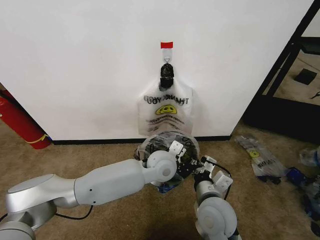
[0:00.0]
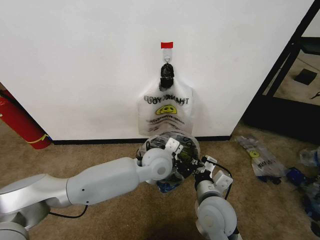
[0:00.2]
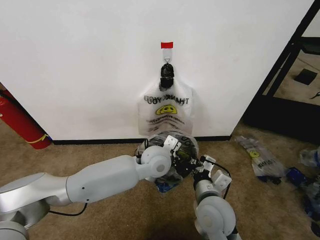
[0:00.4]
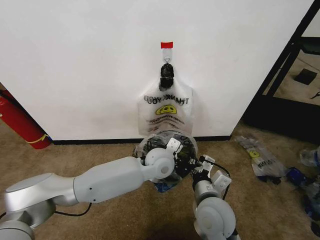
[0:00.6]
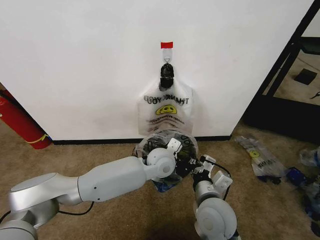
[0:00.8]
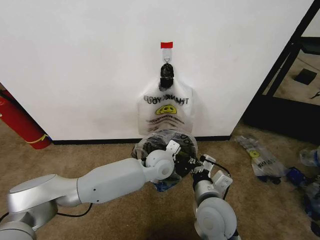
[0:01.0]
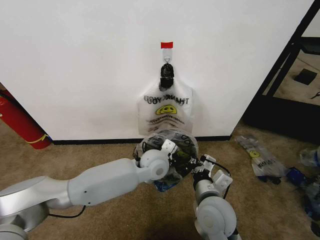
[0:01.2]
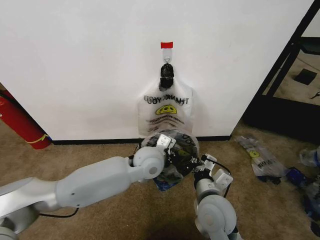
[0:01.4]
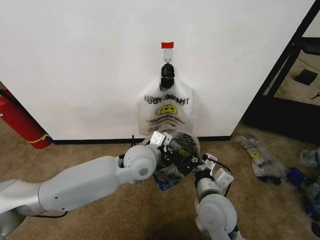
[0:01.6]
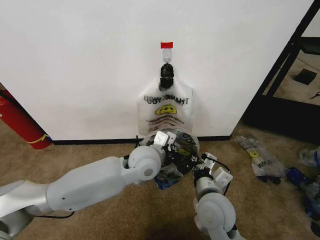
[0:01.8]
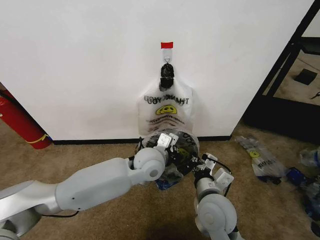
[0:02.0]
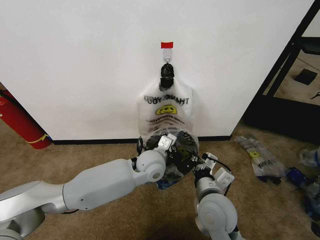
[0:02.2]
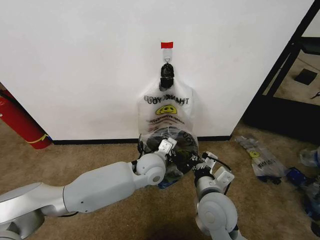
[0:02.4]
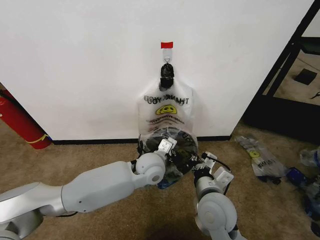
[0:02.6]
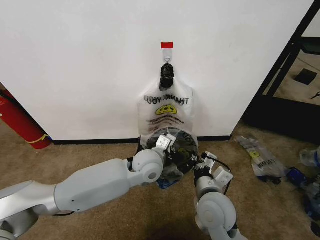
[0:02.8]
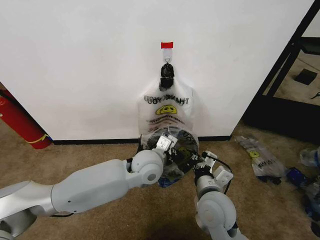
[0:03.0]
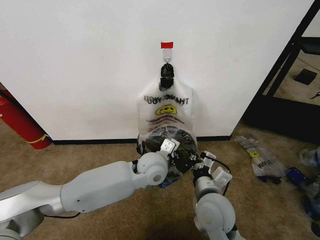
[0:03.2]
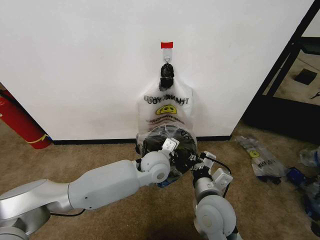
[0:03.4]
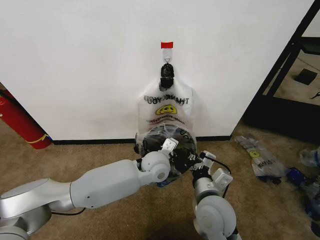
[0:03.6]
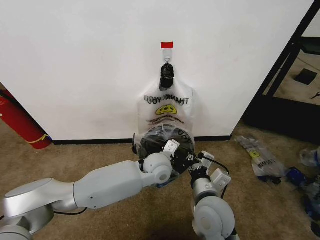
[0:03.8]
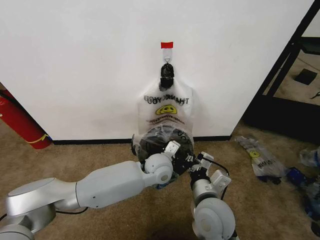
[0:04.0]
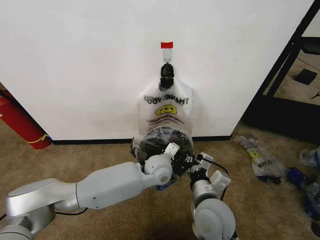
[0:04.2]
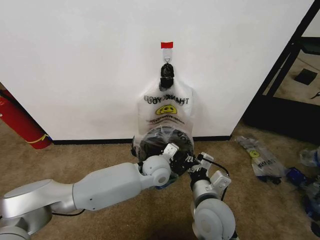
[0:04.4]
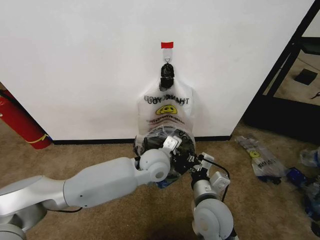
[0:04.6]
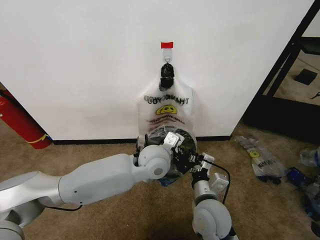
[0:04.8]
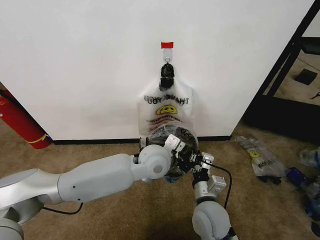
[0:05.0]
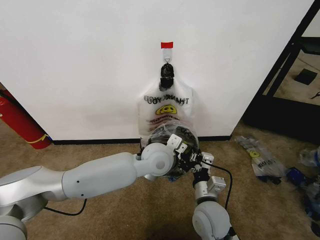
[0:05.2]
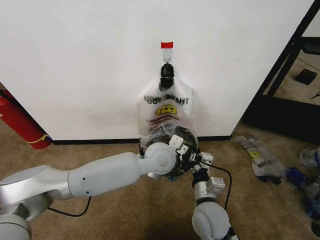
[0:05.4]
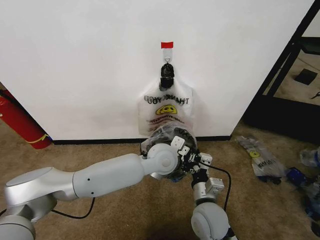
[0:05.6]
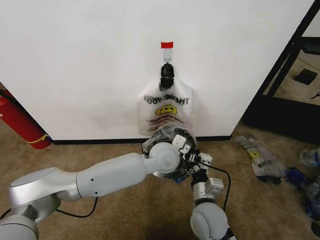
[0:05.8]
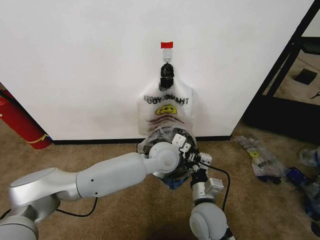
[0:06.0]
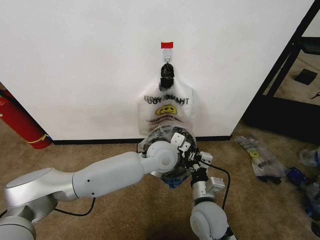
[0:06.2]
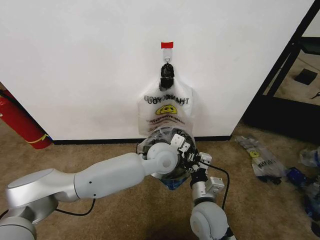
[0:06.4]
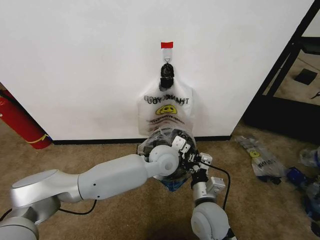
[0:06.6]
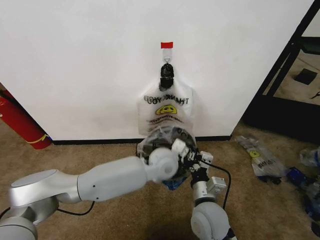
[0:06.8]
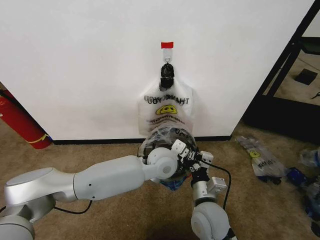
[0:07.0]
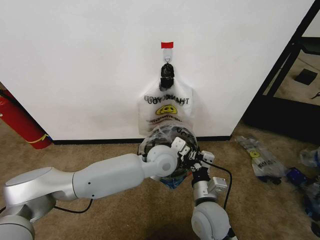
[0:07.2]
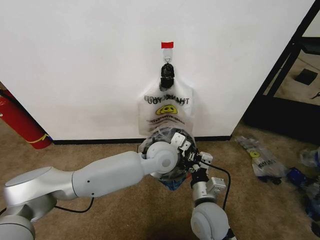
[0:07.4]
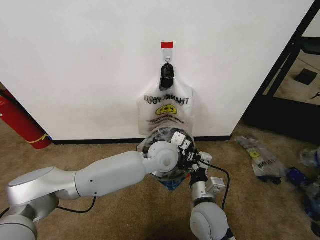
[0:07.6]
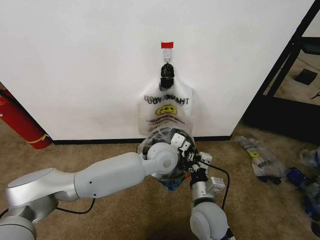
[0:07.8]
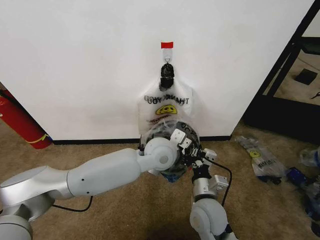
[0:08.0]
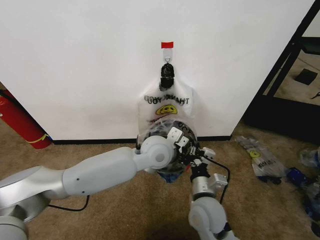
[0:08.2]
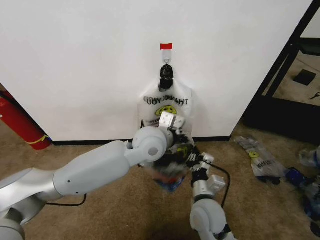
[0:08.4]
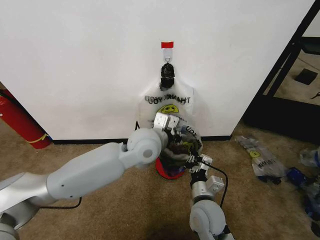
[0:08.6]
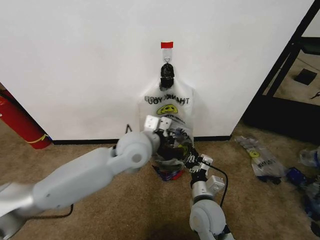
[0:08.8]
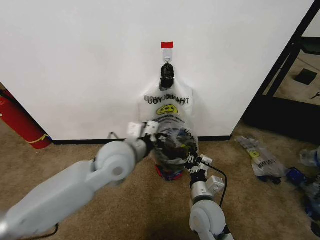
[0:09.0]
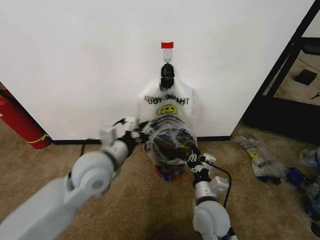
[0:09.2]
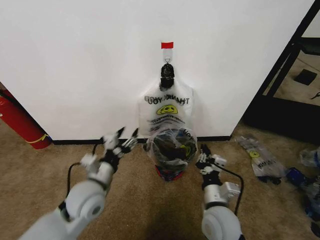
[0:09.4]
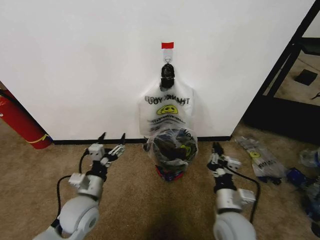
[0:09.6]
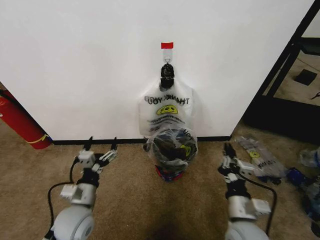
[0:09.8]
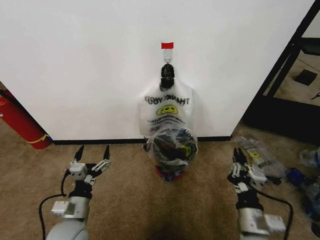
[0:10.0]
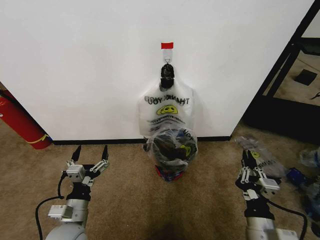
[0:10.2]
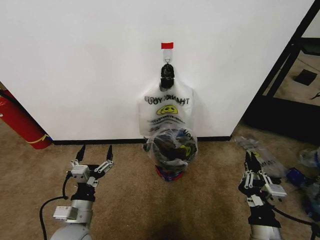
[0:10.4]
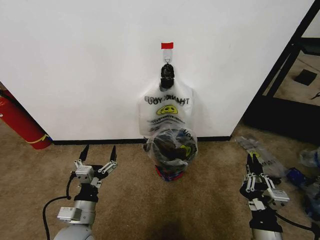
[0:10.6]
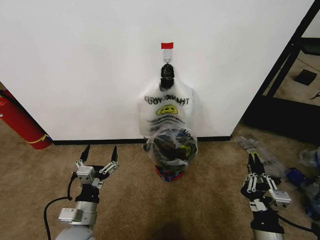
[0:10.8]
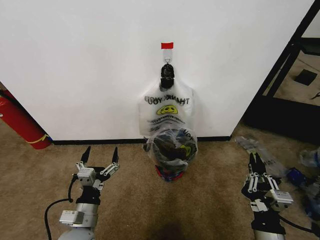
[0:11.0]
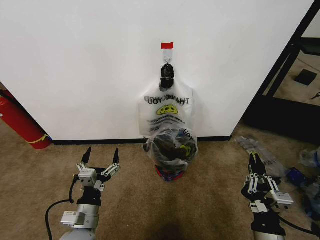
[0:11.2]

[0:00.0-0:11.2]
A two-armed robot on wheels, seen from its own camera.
Task of the whole recording: Pick up the garbage bag from the wall and place it over the trash bin.
0:00.0 to 0:01.6: The left gripper moves to the left, some 5 cm.
0:01.6 to 0:03.2: The left gripper moves approximately 5 cm.
0:03.2 to 0:04.8: The grippers move only a little.
0:04.8 to 0:08.0: The grippers stay close to where they were, moving slightly.
0:08.0 to 0:09.6: The left gripper travels to the left, backward and downward by about 30 cm, and opens up; the right gripper goes some 5 cm to the right.
0:09.6 to 0:11.2: The left gripper moves backward, approximately 10 cm. Meanwhile the right gripper moves backward and to the right, approximately 15 cm.

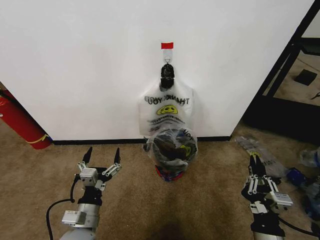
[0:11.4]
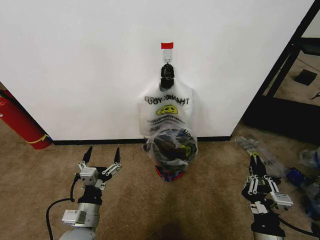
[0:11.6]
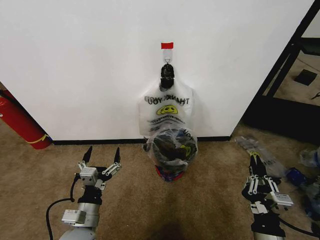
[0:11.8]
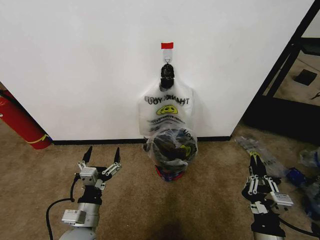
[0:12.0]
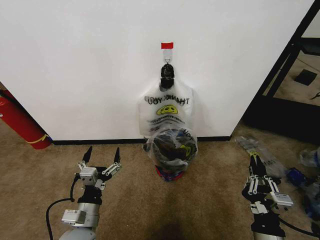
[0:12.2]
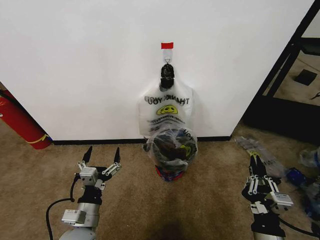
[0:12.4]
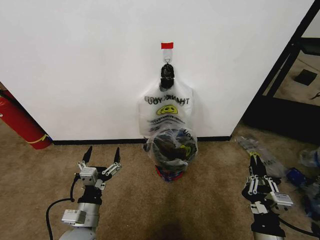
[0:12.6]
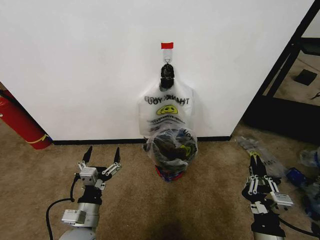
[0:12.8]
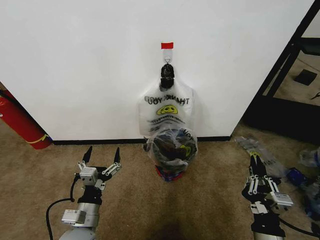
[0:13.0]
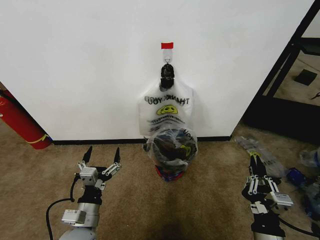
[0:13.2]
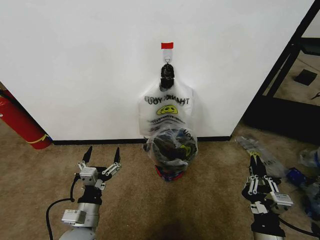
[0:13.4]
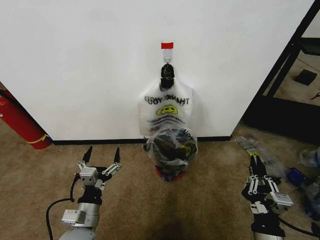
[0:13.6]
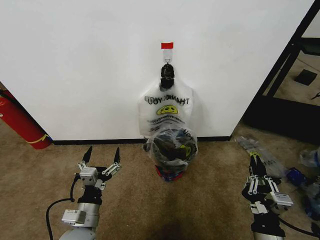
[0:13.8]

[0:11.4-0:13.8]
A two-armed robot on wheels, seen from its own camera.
Task of the whole recording: Pick up the garbage bag from the wall and place it over the trash bin.
0:11.4 to 0:13.8: Both grippers stay about where they are.

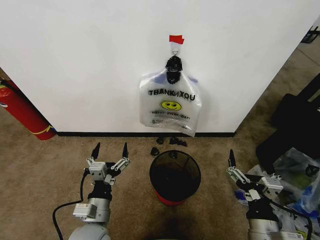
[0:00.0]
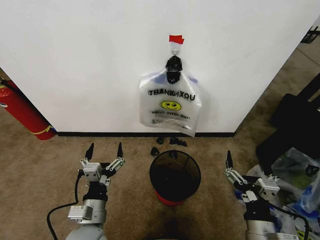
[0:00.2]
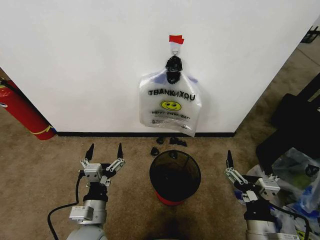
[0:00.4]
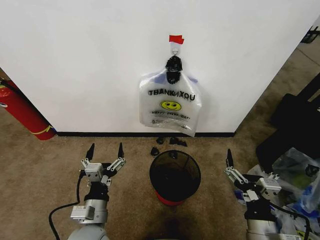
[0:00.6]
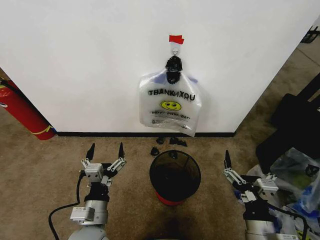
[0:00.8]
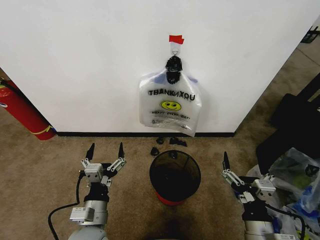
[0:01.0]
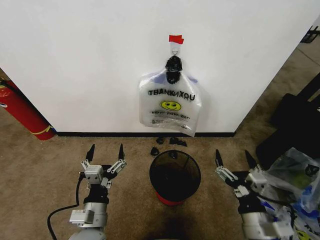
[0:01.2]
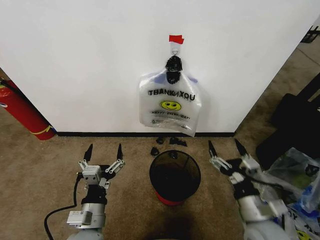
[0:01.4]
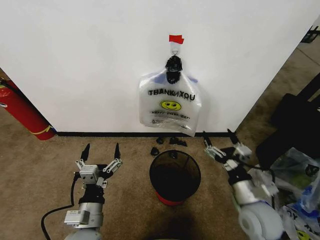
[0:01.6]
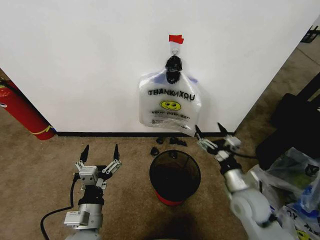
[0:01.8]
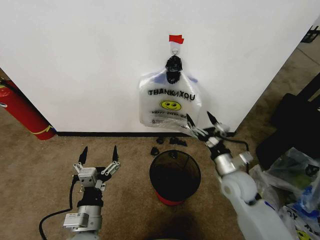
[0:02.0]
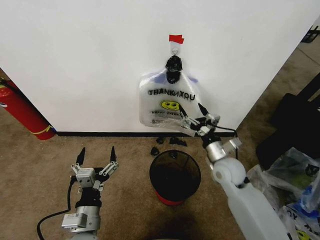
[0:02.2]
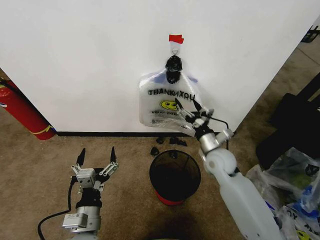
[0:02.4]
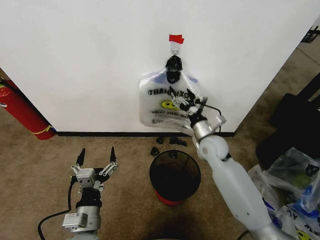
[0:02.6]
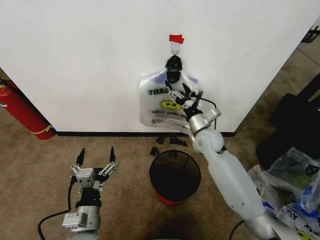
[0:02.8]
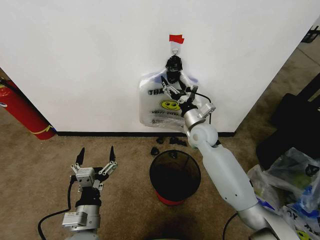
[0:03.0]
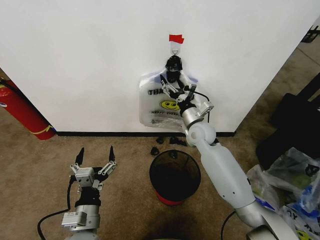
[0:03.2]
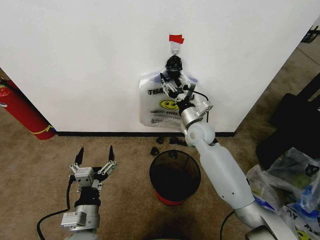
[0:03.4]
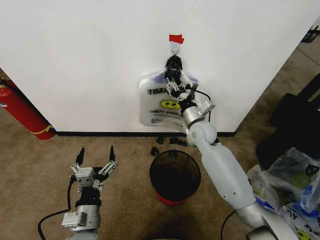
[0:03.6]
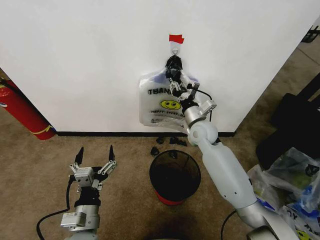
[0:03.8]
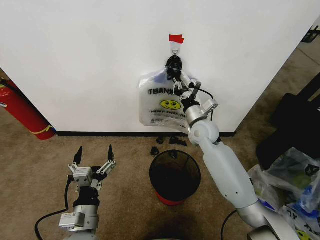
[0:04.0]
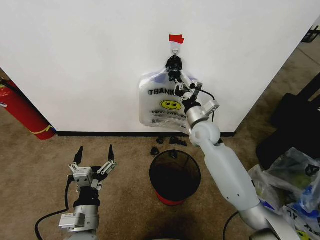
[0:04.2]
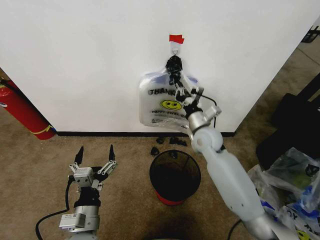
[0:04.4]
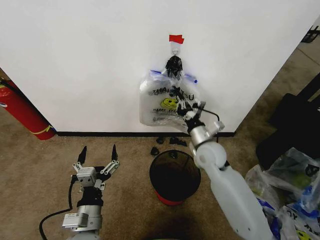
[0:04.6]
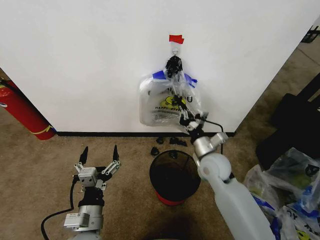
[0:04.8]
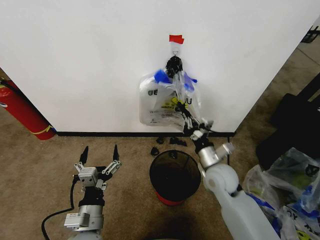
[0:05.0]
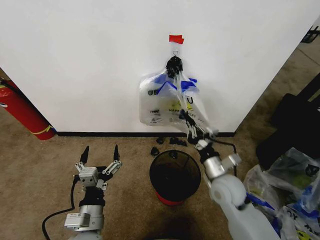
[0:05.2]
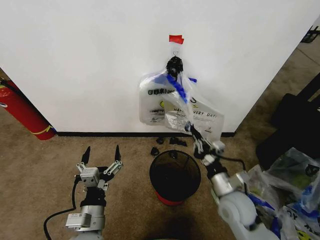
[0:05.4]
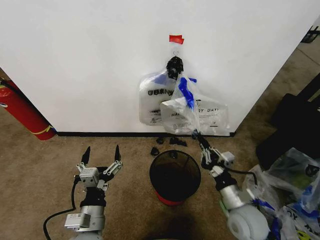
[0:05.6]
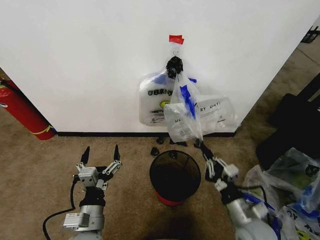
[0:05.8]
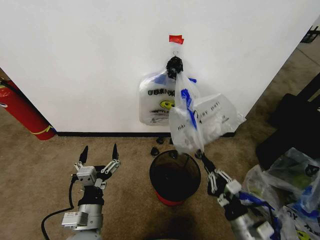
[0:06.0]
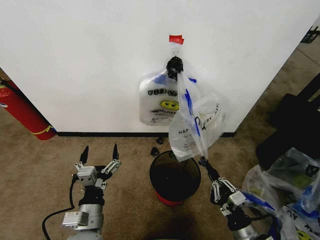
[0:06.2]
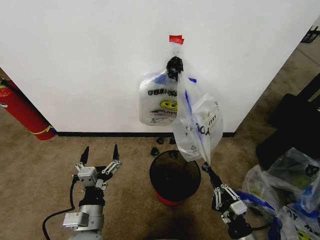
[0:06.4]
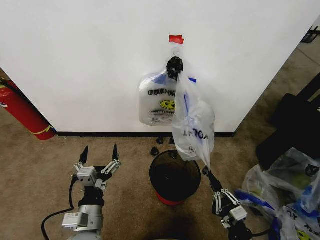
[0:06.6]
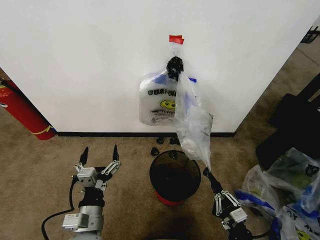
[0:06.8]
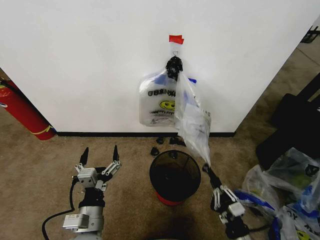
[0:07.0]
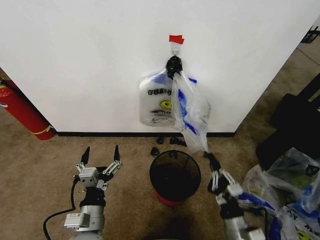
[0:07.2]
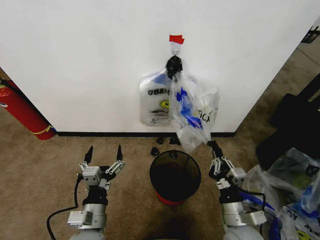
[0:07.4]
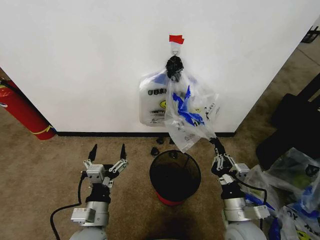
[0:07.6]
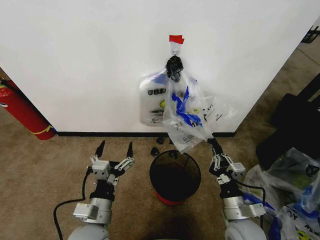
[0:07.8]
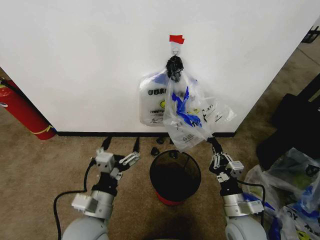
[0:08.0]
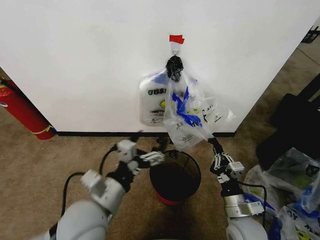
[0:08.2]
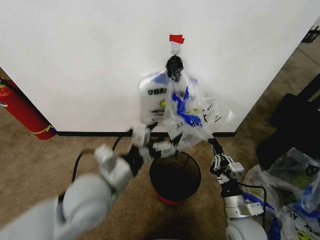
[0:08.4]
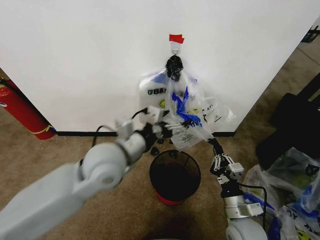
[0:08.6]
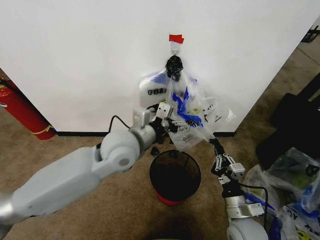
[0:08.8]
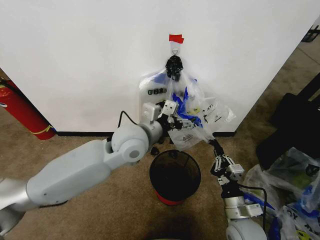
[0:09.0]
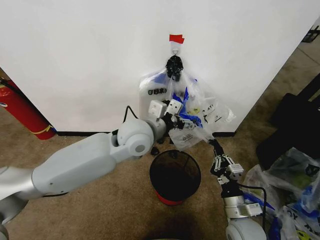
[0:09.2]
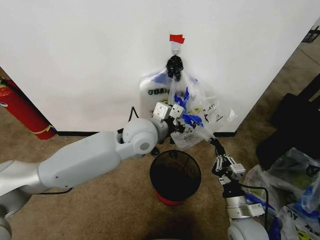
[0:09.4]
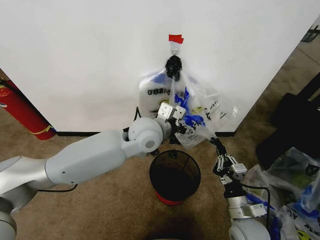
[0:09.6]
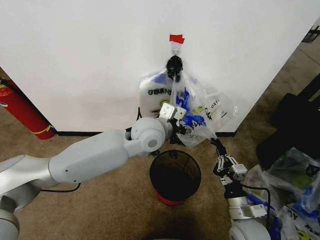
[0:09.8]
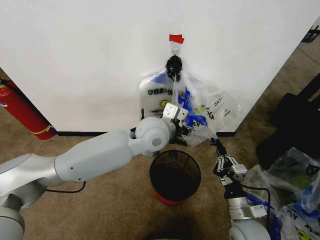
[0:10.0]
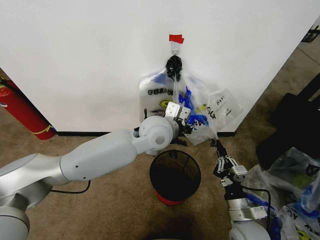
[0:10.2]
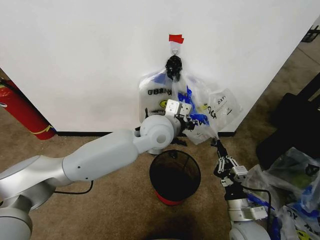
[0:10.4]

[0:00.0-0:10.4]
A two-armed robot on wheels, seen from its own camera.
Task of the whole recording: Pick up the garbage bag from the wall and place it over the trash bin.
0:01.4 to 0:03.0: The right gripper shifts approximately 30 cm forward.
0:03.0 to 0:04.4: The right gripper closes its fingers.
0:04.4 to 0:06.0: The right gripper moves backward and downward, roughly 30 cm.
0:07.4 to 0:09.0: The left gripper travels forward, upward and to the right by roughly 30 cm.
0:09.0 to 0:10.4: The left gripper travels to the right by some 5 cm, and closes its fingers.
